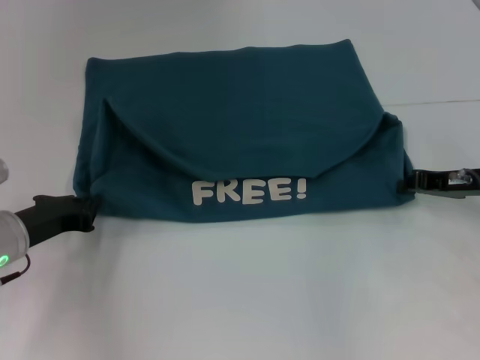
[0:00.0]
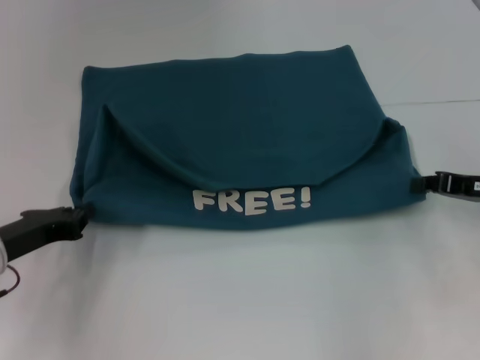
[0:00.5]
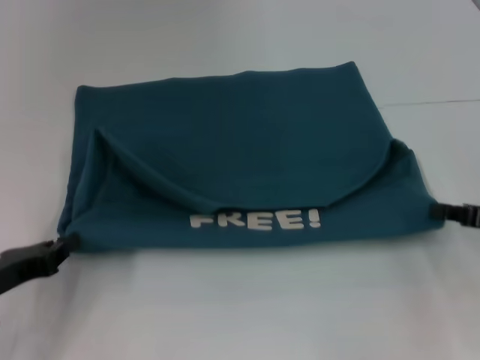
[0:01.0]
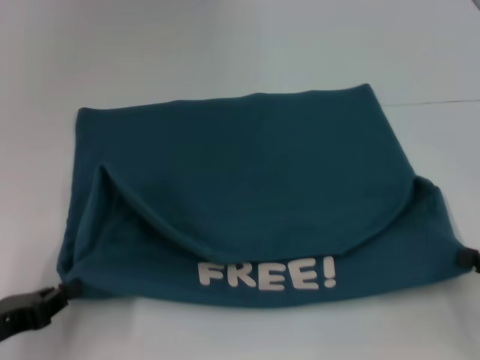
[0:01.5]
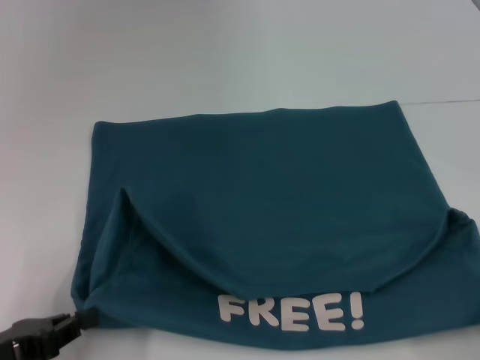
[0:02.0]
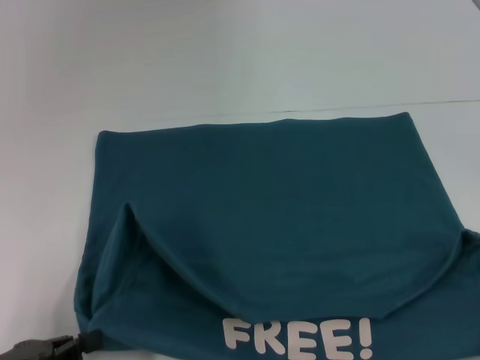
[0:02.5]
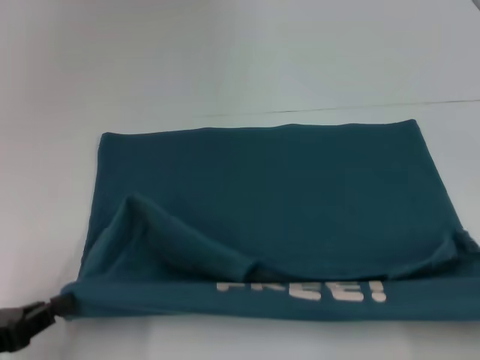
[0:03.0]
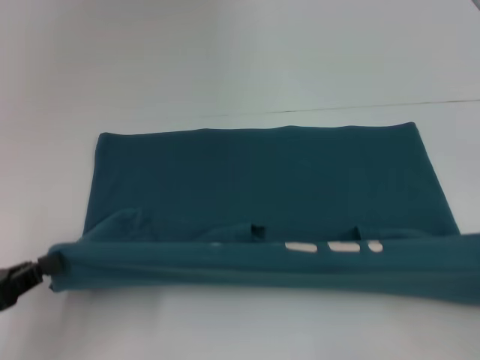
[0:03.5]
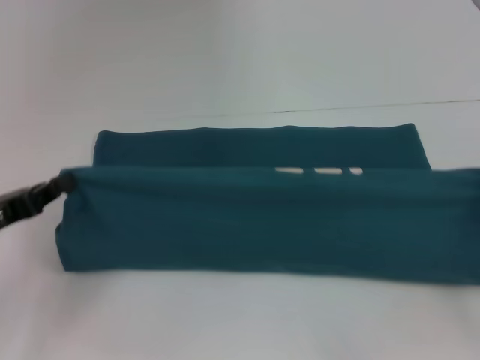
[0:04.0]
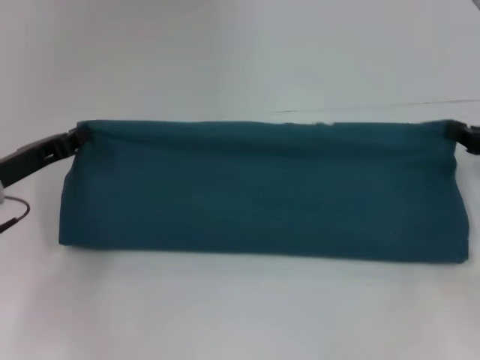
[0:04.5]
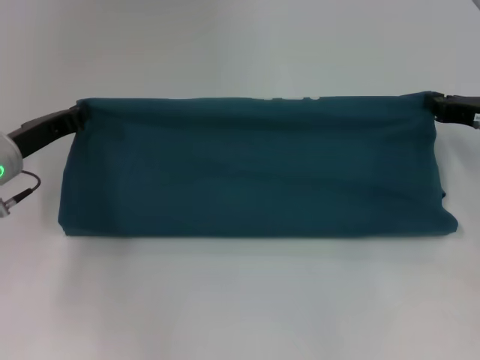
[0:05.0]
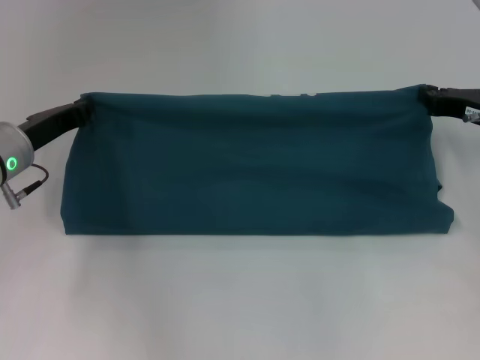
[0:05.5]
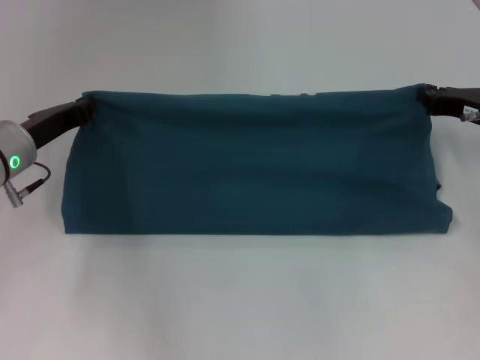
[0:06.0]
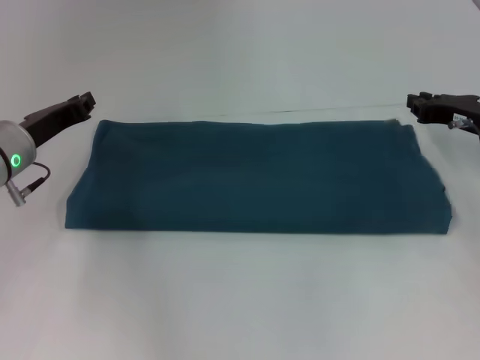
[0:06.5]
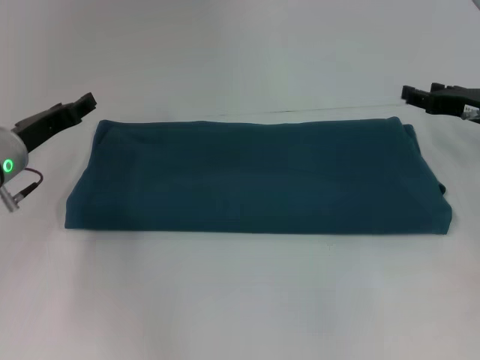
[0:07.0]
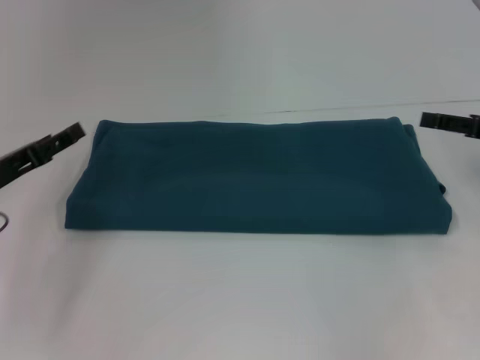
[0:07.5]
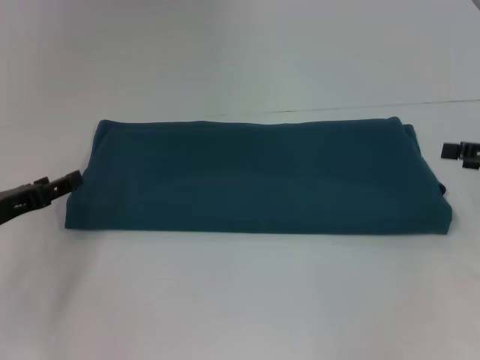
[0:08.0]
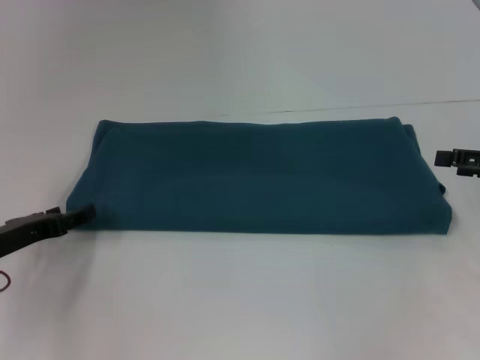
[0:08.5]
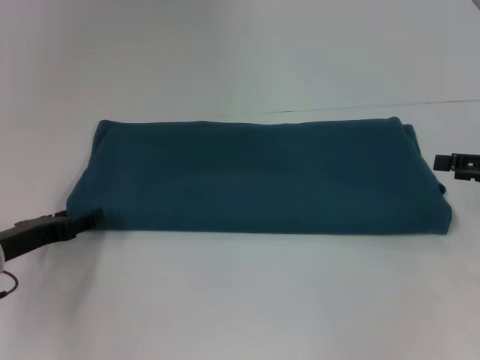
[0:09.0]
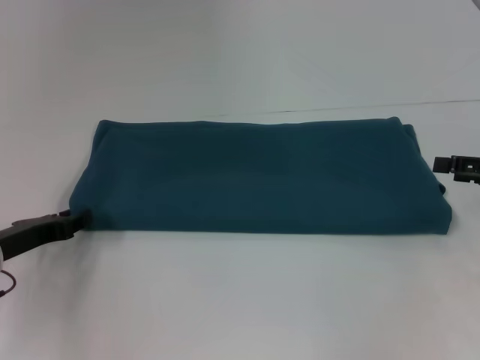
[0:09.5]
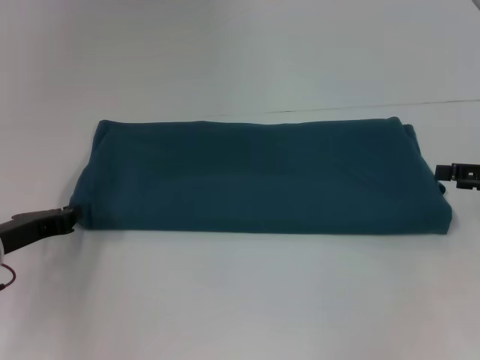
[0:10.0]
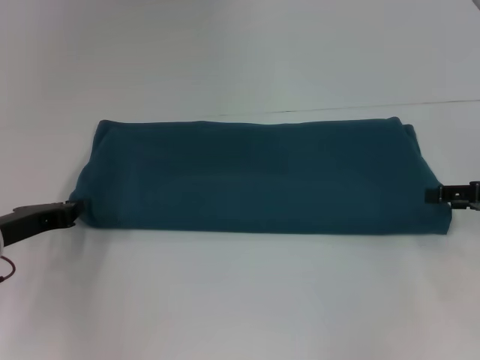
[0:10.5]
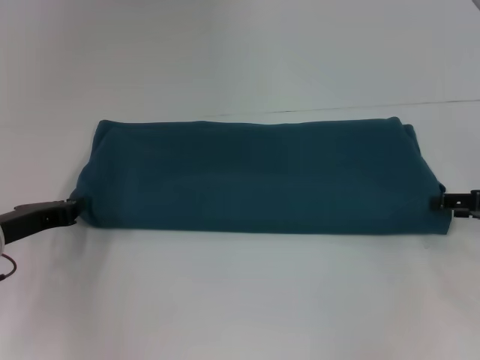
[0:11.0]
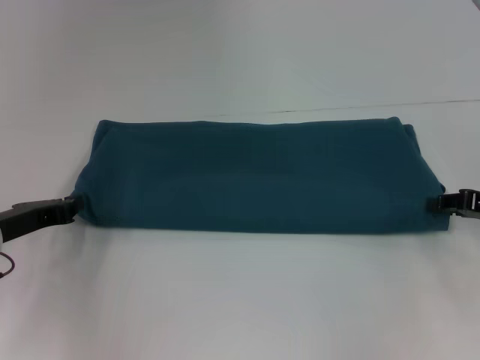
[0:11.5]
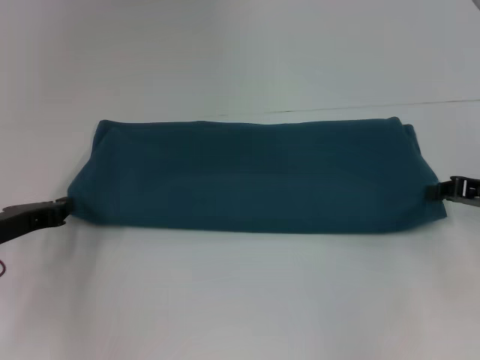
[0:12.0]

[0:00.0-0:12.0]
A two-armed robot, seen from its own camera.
Step, 0:02.0 to 0:06.5: Fold the clothes to the left.
Step, 0:02.0 to 0:06.5: Fold the clothes to the right.
0:00.0 to 0:02.0: The left gripper goes roughly 15 cm backward; the right gripper moves backward, approximately 20 cm.
0:02.0 to 0:04.0: The left gripper travels forward by some 10 cm; the right gripper moves forward and upward, about 10 cm.
0:04.0 to 0:06.0: The left gripper is displaced forward and to the right by about 15 cm, while the right gripper travels forward and to the left by approximately 15 cm.
0:06.0 to 0:08.0: The left gripper moves backward and to the left, roughly 10 cm, and opens up, while the right gripper heads backward and to the right, covering about 10 cm, and opens its fingers.
0:08.0 to 0:10.0: The left gripper closes its fingers.
0:10.0 to 0:12.0: The right gripper closes up.

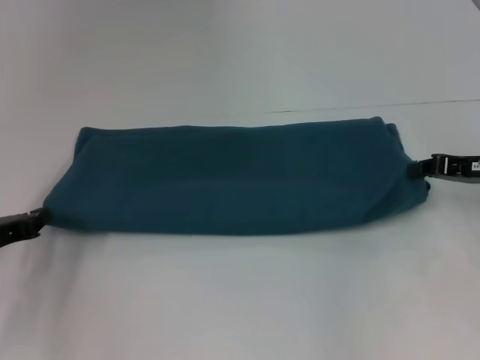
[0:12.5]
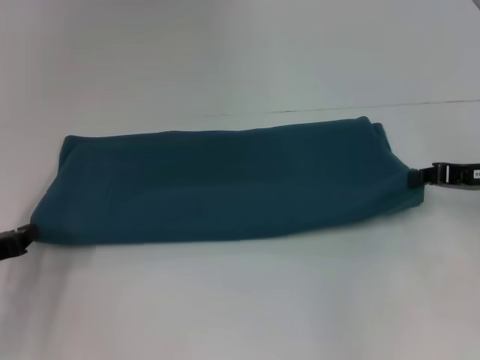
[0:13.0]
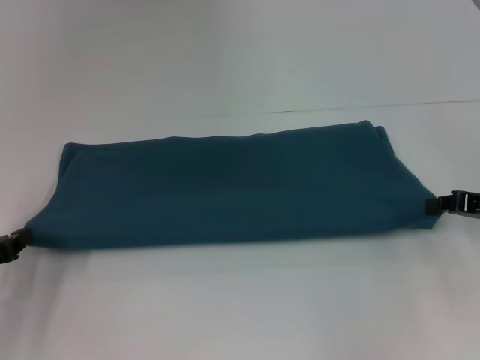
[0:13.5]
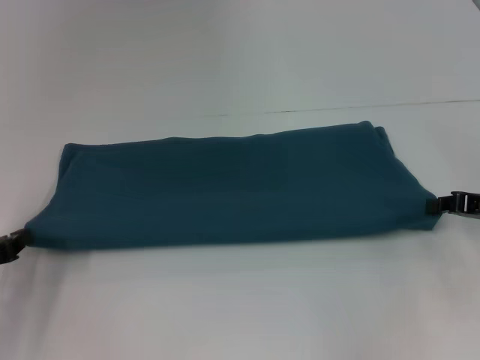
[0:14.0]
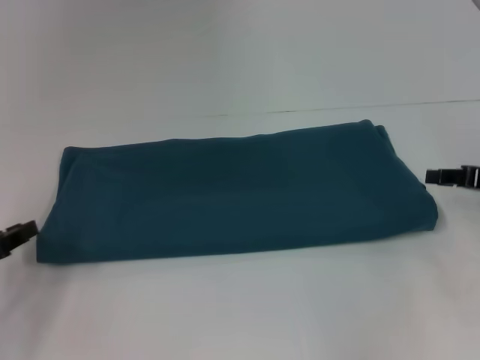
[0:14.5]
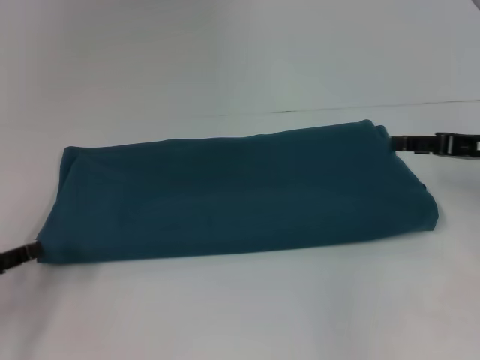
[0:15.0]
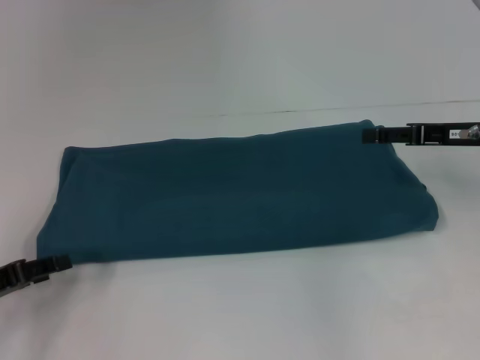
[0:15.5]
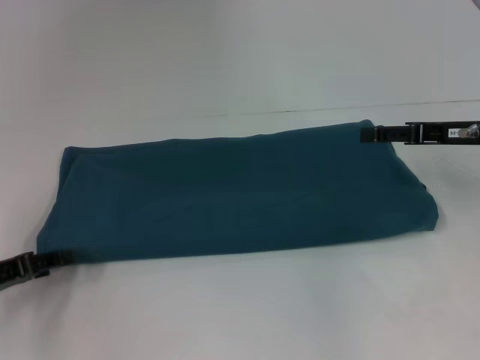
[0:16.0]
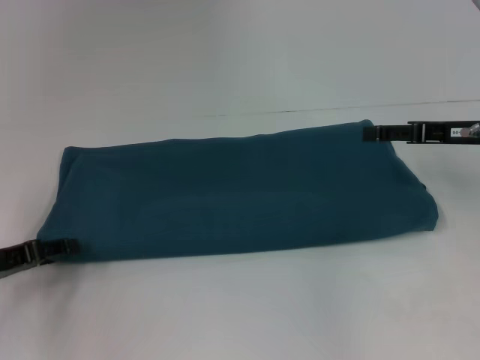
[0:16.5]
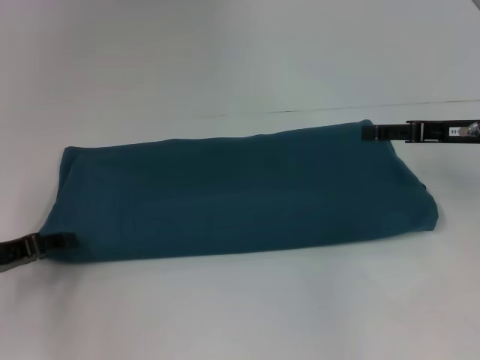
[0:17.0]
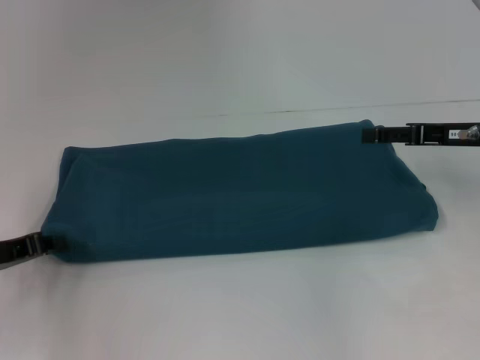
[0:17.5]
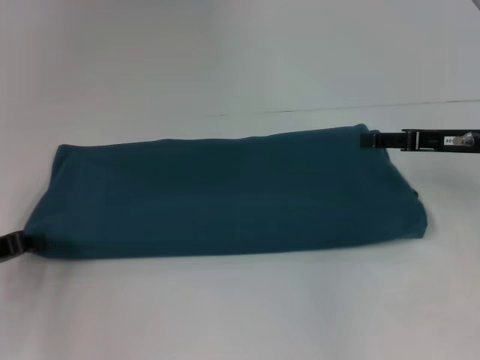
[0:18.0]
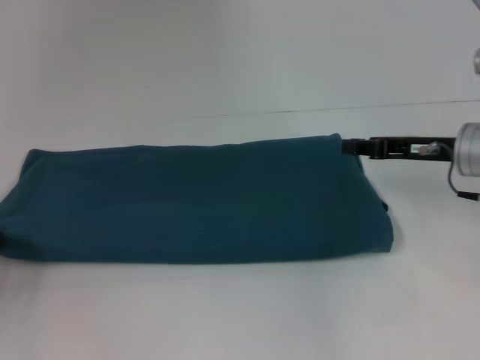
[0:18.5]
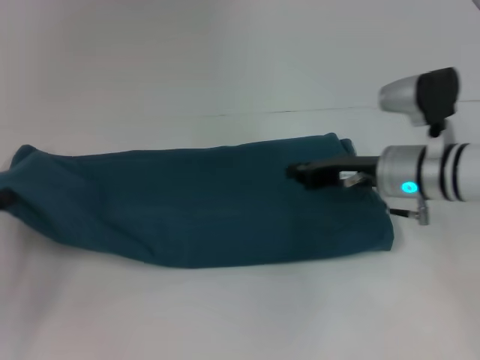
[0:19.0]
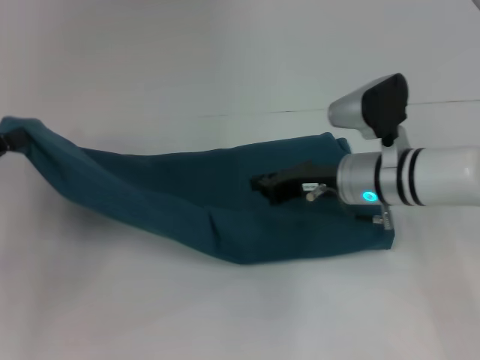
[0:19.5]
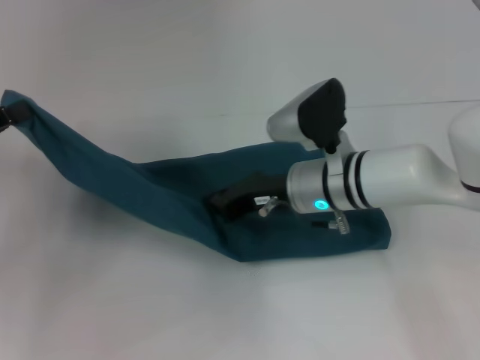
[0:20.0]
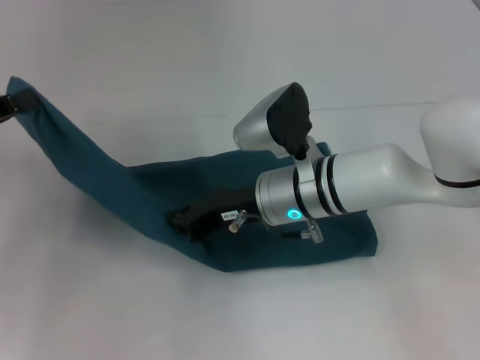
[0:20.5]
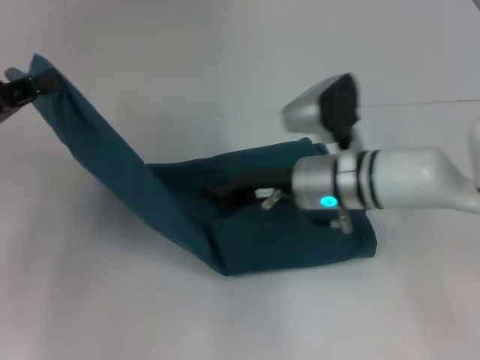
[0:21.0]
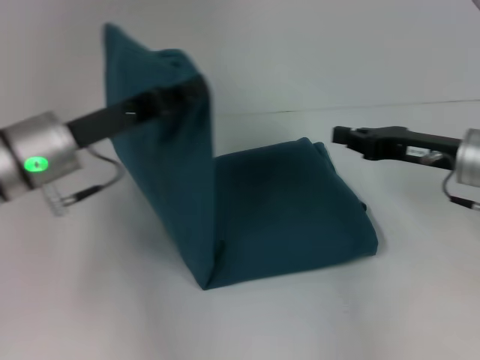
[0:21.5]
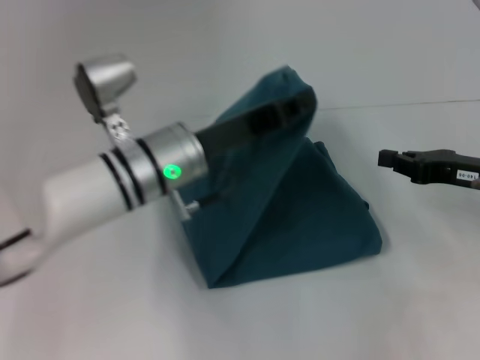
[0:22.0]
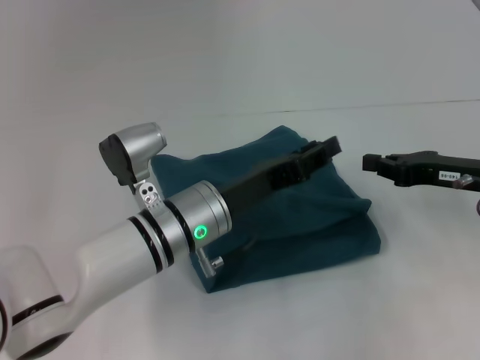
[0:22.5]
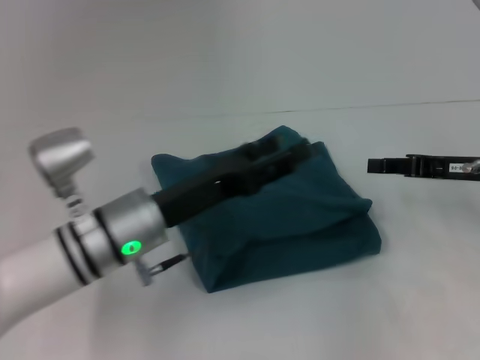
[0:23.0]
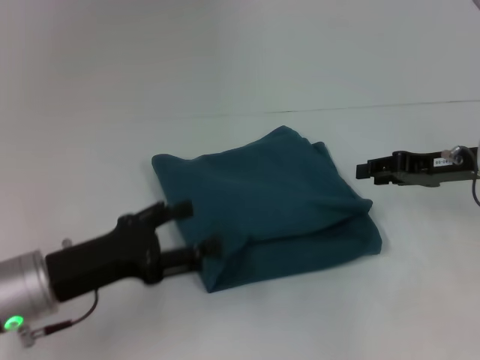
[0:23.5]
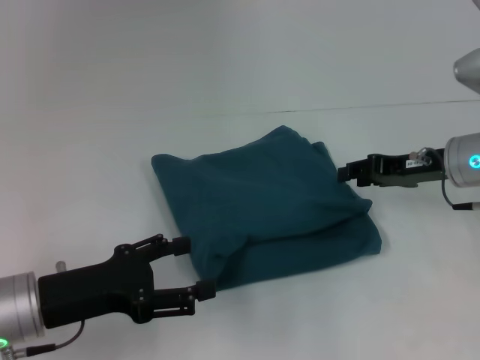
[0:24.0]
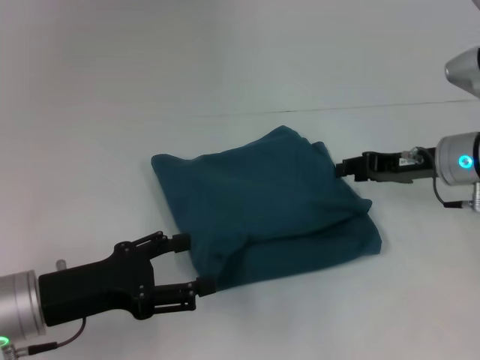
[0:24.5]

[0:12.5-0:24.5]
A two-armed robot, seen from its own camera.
Step, 0:12.5 to 0:21.0: Press the middle of the clothes with your right hand.
Step, 0:21.5 to 0:22.0: Fold the clothes to the left.
0:12.5 to 0:14.5: The grippers stay close to where they were, moving slightly.
0:14.5 to 0:16.5: The left gripper opens up; the right gripper is displaced to the left by about 5 cm, and opens.
0:16.5 to 0:18.5: The right gripper closes its fingers. The left gripper ends up about 5 cm from where it was, and closes its fingers.
0:18.5 to 0:20.5: The left gripper goes about 10 cm upward; the right gripper is displaced to the left by roughly 20 cm, and closes its fingers.
0:20.5 to 0:22.5: Both grippers move to the right, some 25 cm.
0:22.5 to 0:24.5: The left gripper moves to the left and backward, approximately 20 cm, and opens; the right gripper goes some 5 cm forward, and opens up.

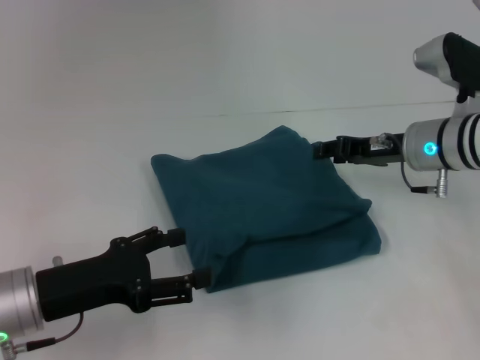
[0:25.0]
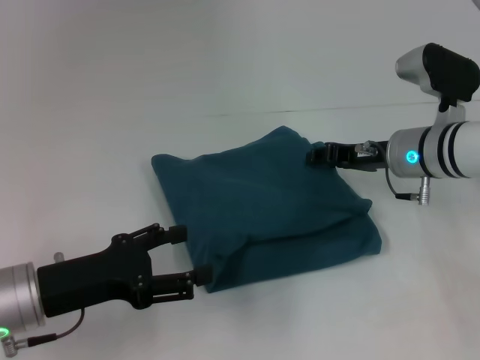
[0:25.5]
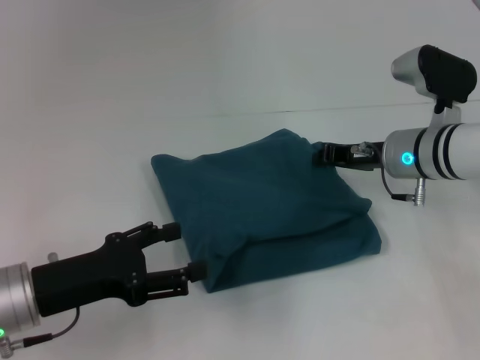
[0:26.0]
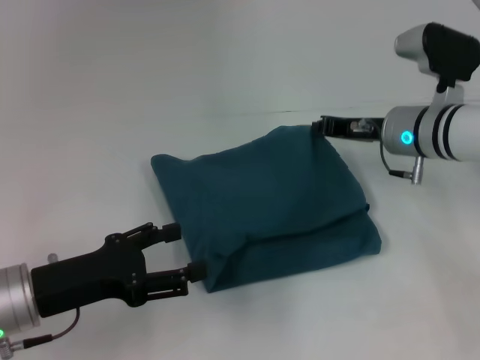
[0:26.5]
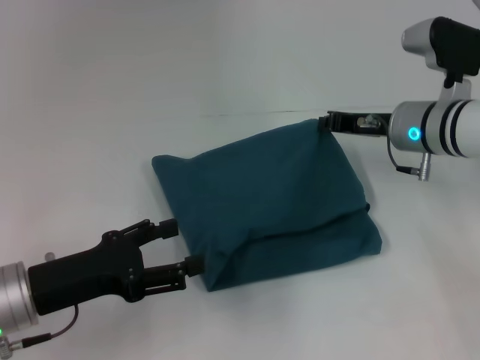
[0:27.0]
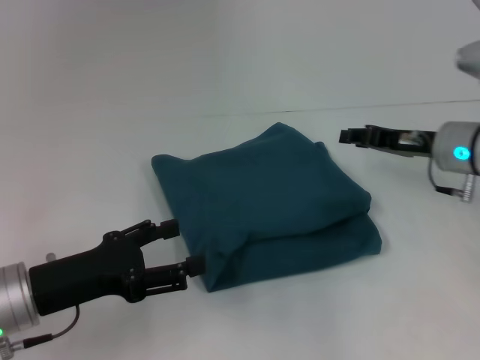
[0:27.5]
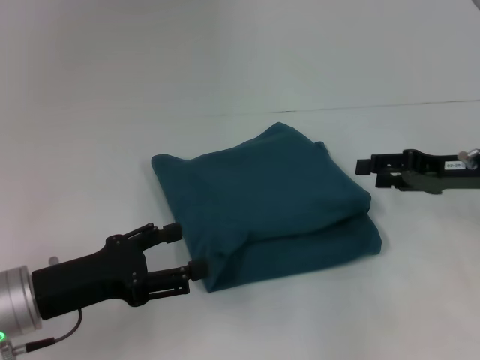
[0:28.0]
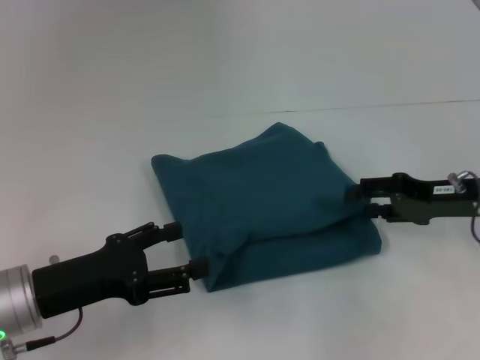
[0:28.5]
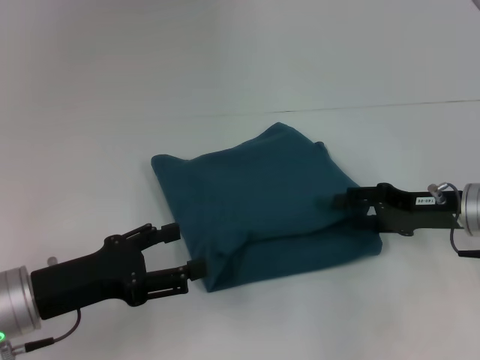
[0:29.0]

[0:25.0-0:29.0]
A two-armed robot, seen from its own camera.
0:25.0 to 0:27.0: The right gripper closes.
0:27.0 to 0:29.0: The right gripper shifts about 10 cm backward and to the right, and opens up.
